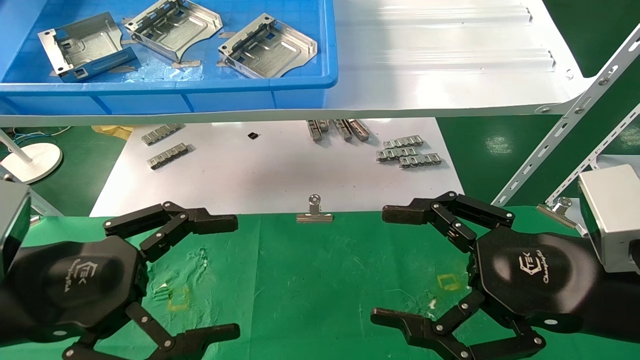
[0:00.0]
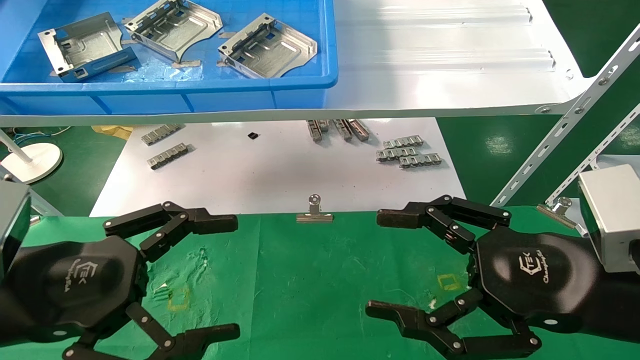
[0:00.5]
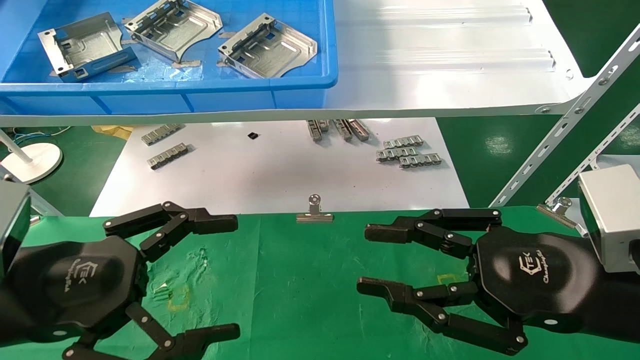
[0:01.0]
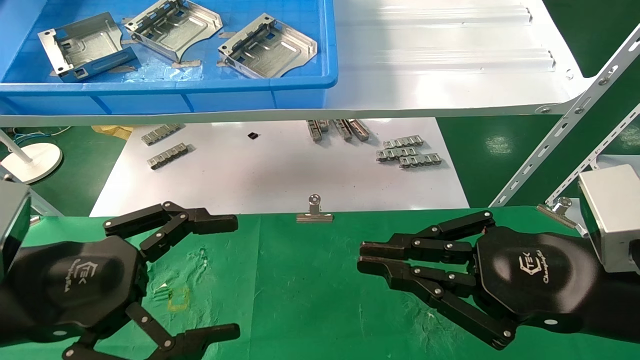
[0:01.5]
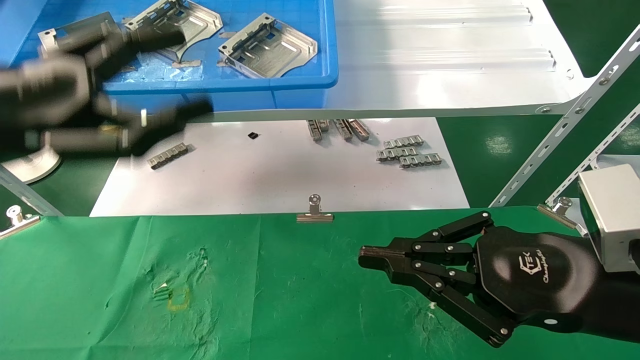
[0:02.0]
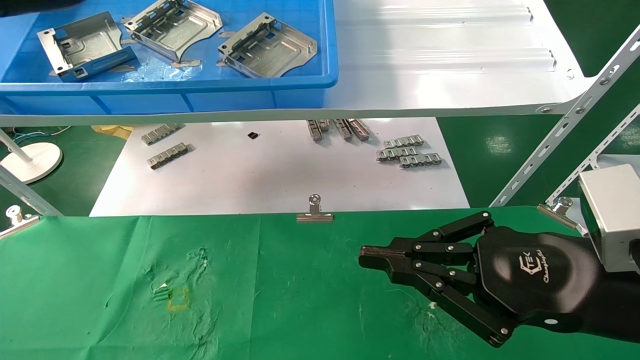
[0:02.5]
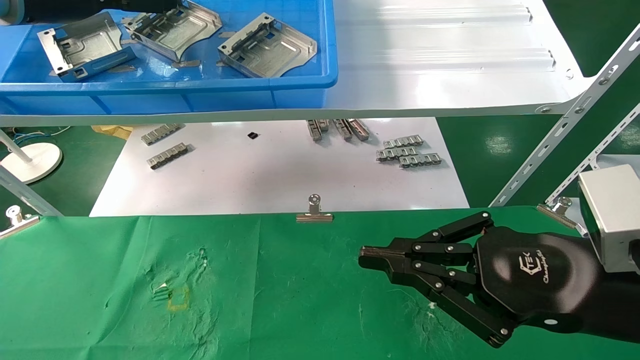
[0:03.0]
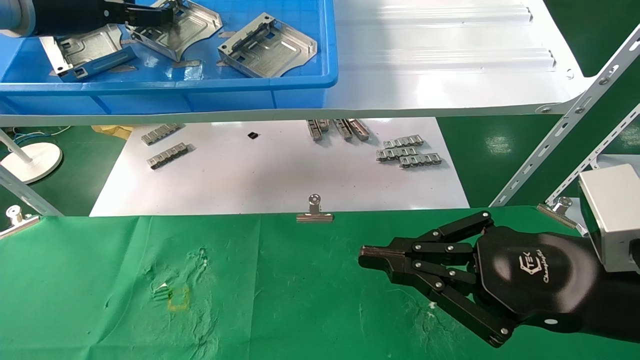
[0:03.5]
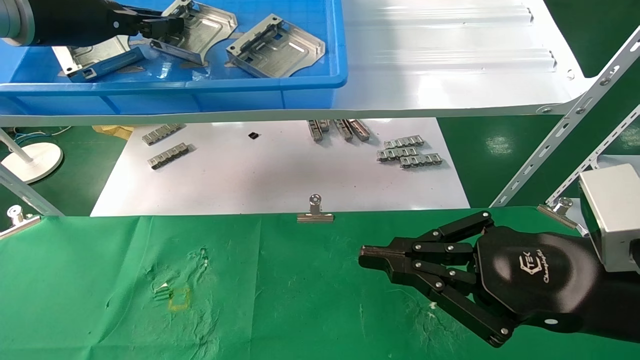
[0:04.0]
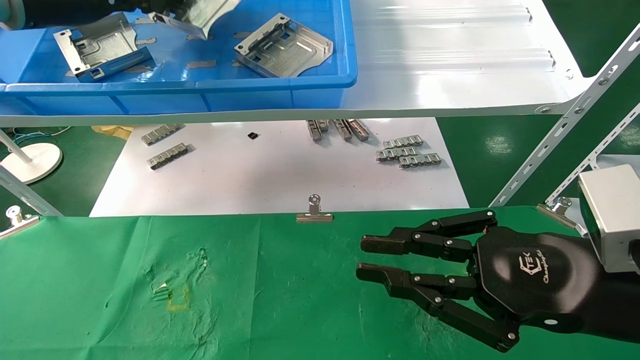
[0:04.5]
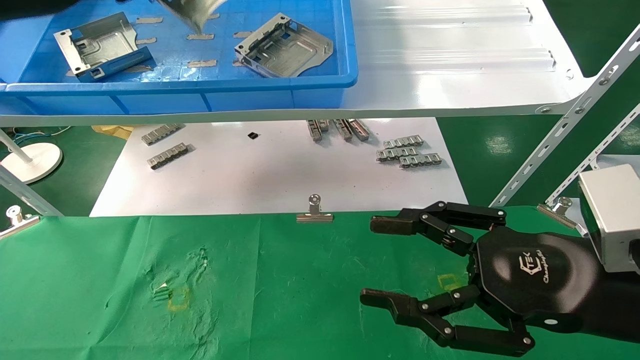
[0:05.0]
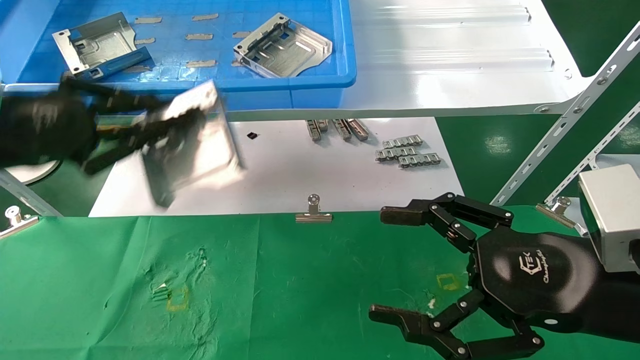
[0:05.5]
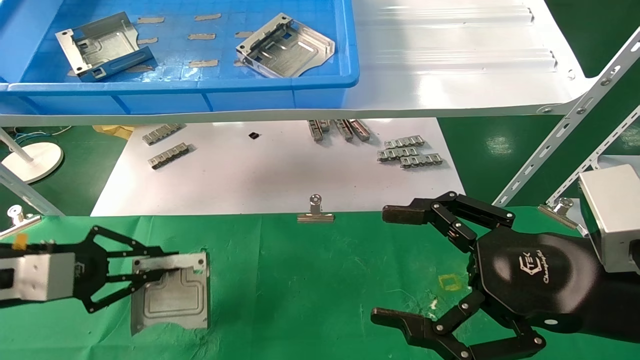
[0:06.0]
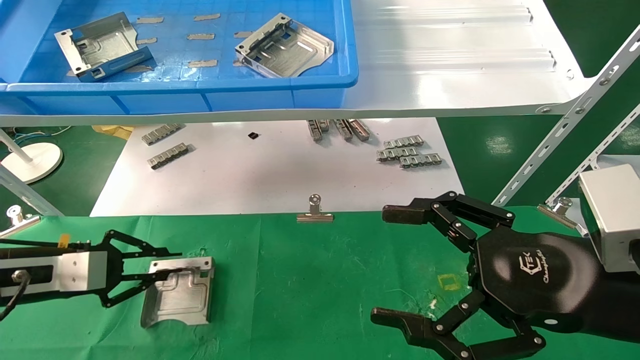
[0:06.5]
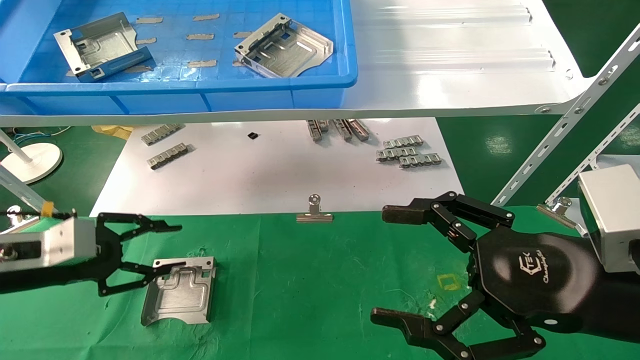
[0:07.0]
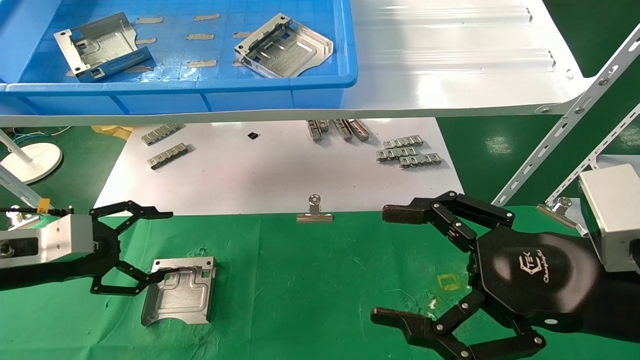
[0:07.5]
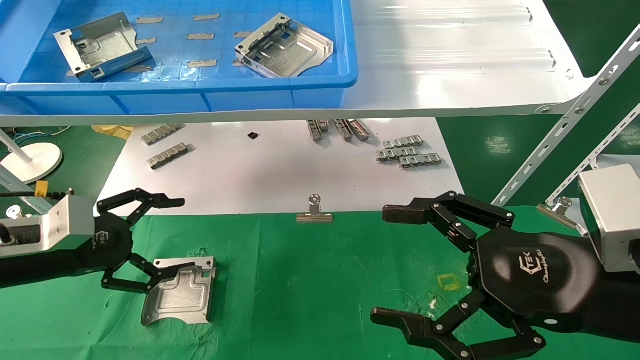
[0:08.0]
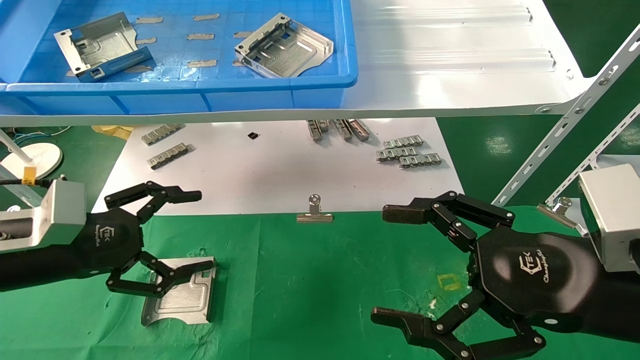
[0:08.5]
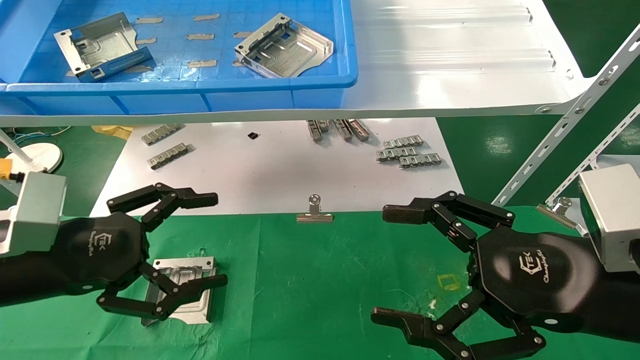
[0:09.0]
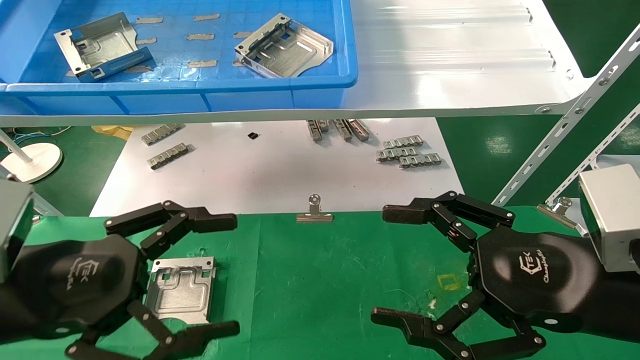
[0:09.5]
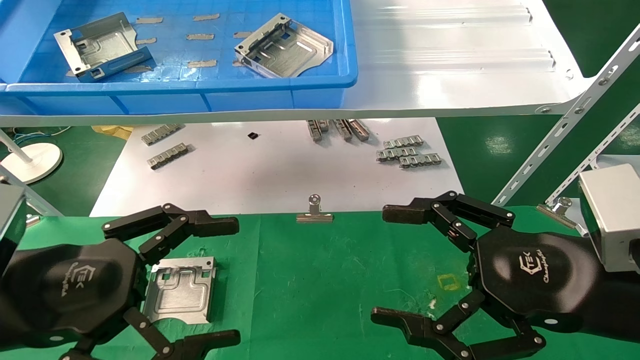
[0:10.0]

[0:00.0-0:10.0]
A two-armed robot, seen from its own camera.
Task of the whole recording: use the mechanical arm to pick up the parts and place them on the table.
Step, 0:01.0 to 0:05.0: Pick up the hard drive bracket from the feeding area.
Step, 0:05.5 to 0:07.5: Place the hard drive bracket into the box.
0:00.0 to 0:02.0: The left gripper heads upward, covering approximately 10 cm, while the right gripper closes.
0:02.0 to 0:04.0: The left gripper heads forward and upward, covering approximately 20 cm, and closes.
0:04.0 to 0:06.0: The left gripper moves downward, about 25 cm. Meanwhile the right gripper opens up.
0:06.0 to 0:08.0: The left gripper opens.
0:08.0 to 0:10.0: The left gripper travels backward and to the right by about 15 cm.

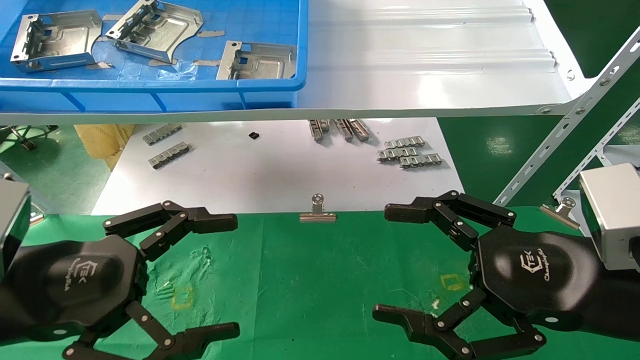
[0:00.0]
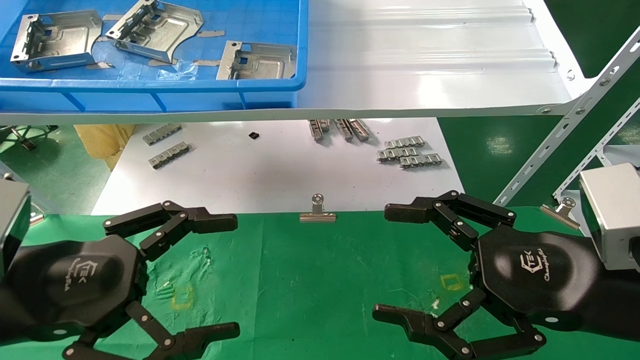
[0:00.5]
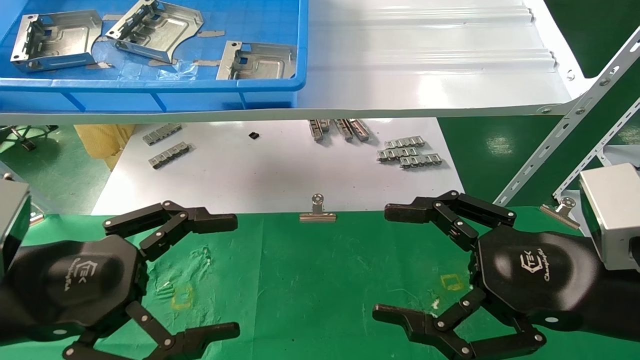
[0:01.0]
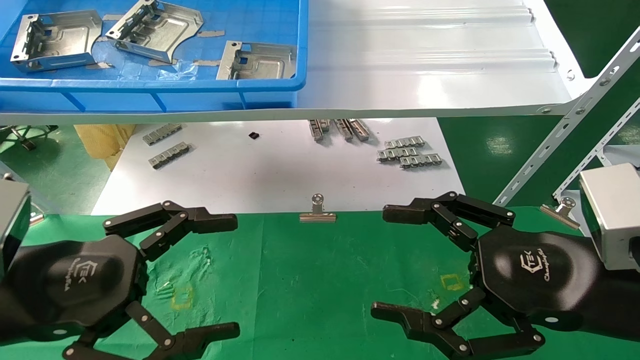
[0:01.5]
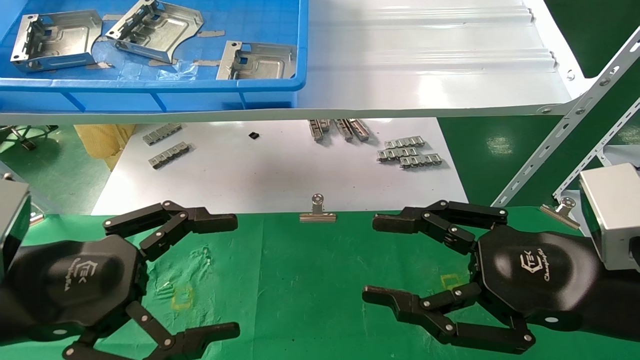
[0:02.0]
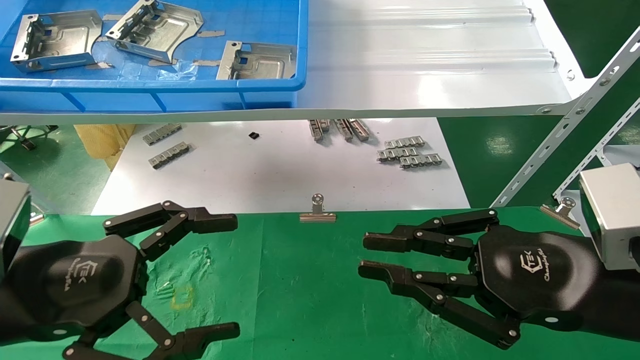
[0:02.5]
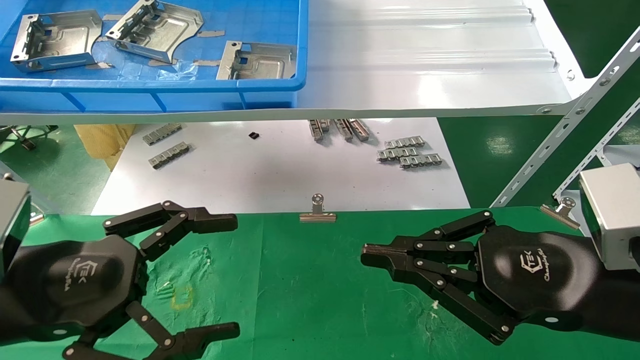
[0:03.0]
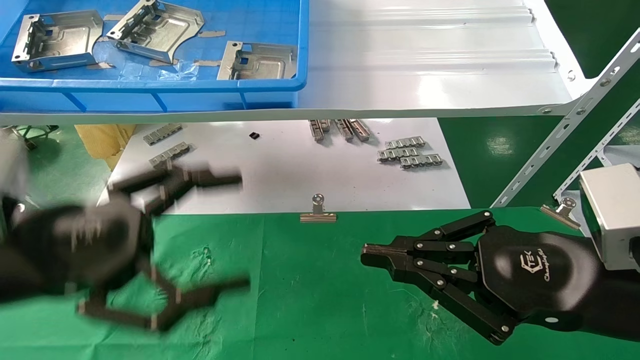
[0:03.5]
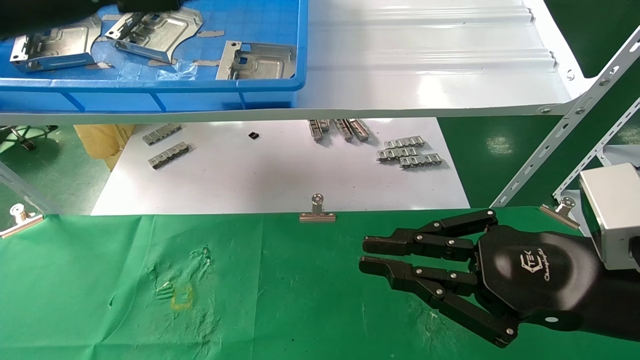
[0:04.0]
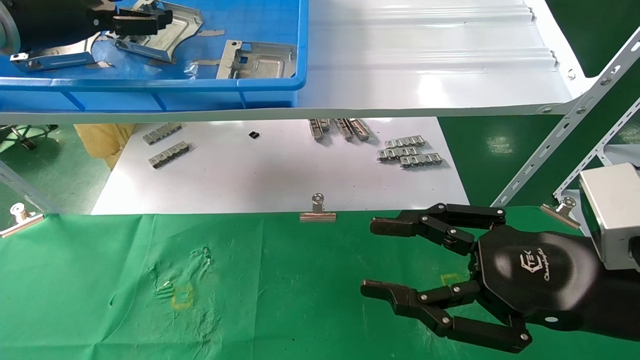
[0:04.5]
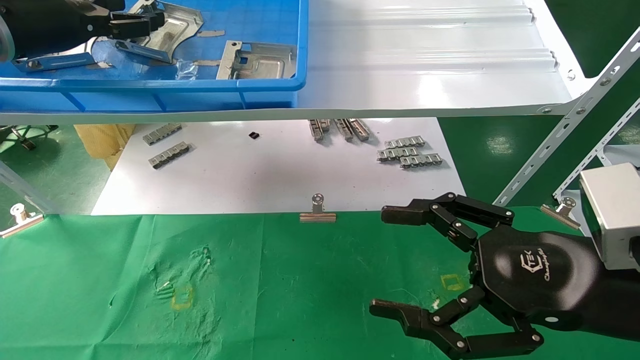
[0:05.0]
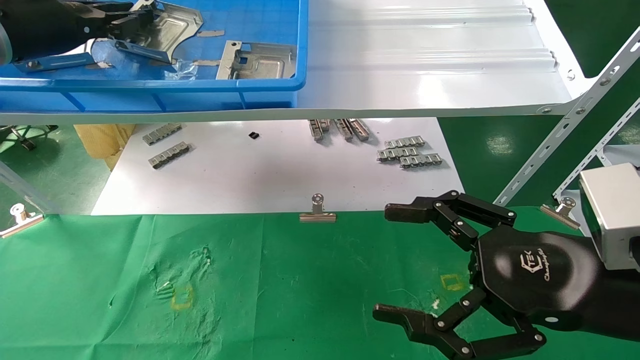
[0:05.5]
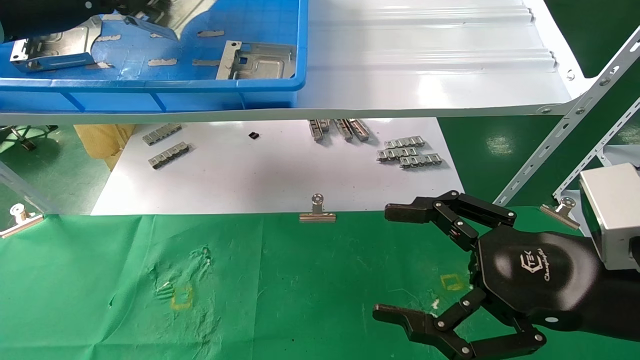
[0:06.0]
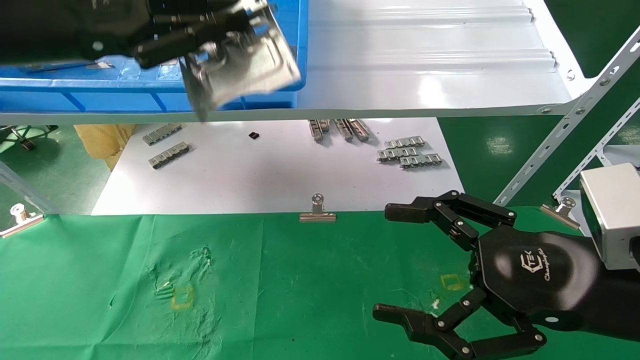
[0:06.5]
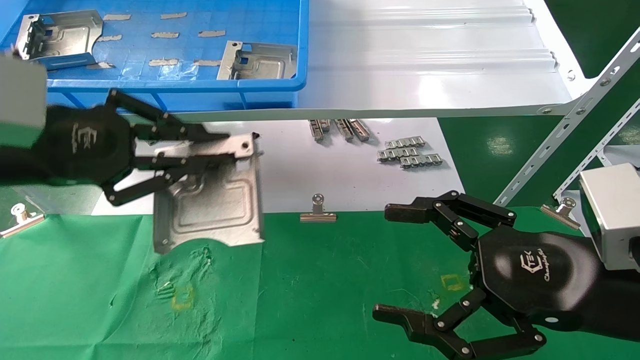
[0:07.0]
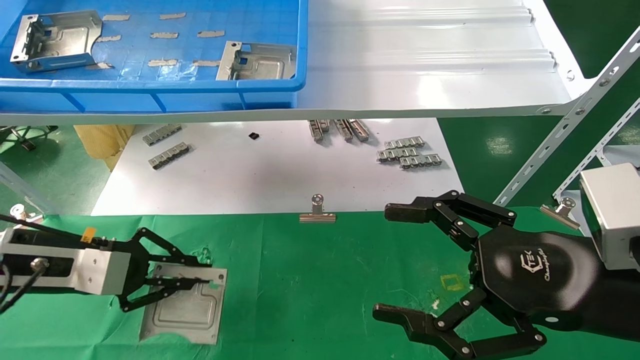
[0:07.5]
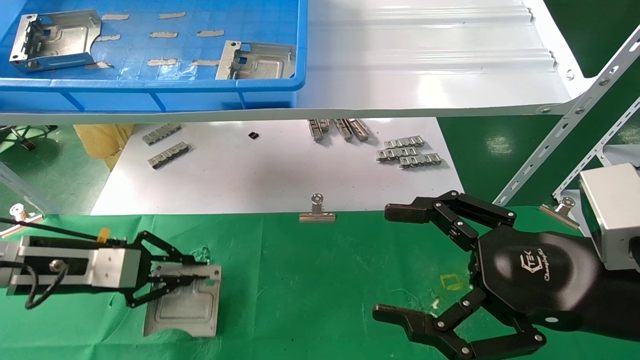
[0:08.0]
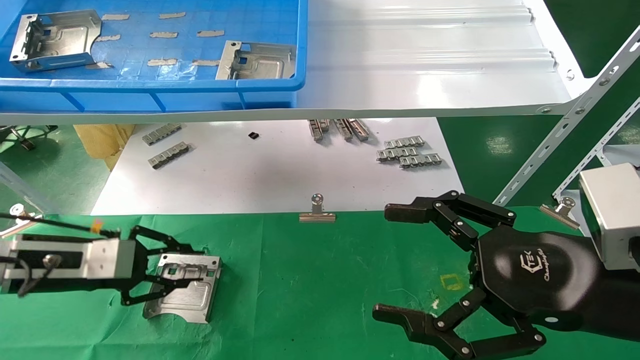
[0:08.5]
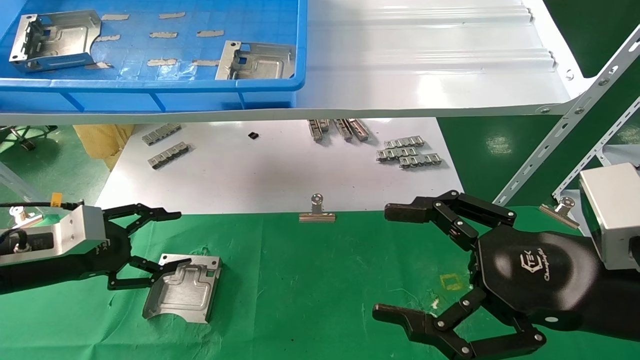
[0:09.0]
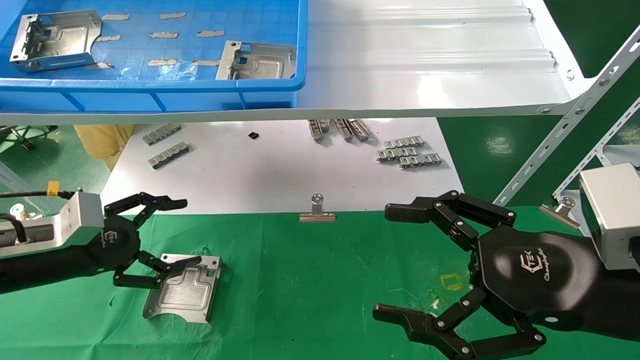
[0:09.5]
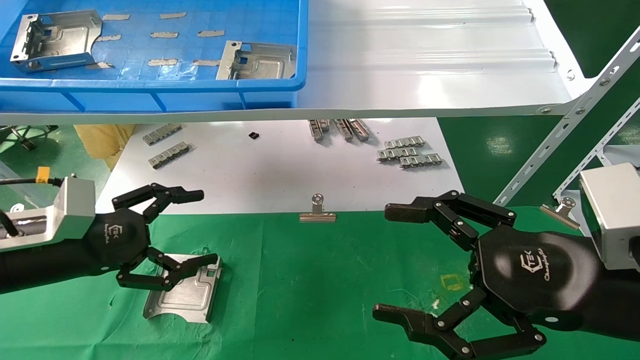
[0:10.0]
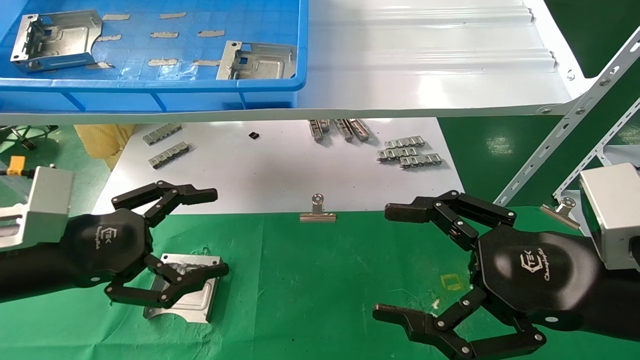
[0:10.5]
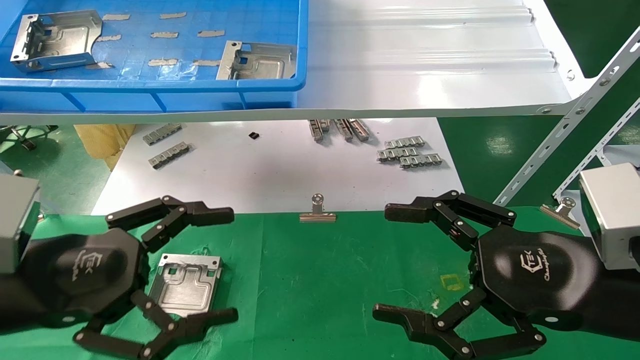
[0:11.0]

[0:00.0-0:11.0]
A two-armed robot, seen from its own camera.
Task of the whole recording: use the mechanical arm to pick up the parts and place them on the table.
Step, 0:04.0 to 0:05.5: Pick up the hard drive bracket from the feeding area.
Step, 0:06.0 to 0:08.5: Place the hard drive bracket into the box.
0:00.0 to 0:02.0: Both grippers stay about where they are.
0:02.0 to 0:03.5: The right gripper closes up. Meanwhile the left gripper travels upward by about 5 cm.
0:03.5 to 0:05.5: The left gripper shifts roughly 25 cm forward, upward and to the left, and closes up, while the right gripper opens its fingers.
0:05.5 to 0:07.5: The left gripper heads downward, covering approximately 25 cm.
0:07.5 to 0:09.0: The left gripper moves roughly 5 cm, and opens.
0:09.0 to 0:11.0: The left gripper heads backward, to the right and upward, covering approximately 20 cm, and opens up.
